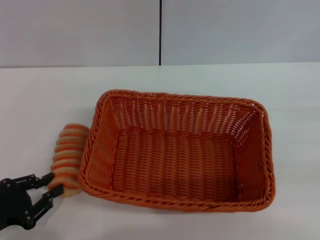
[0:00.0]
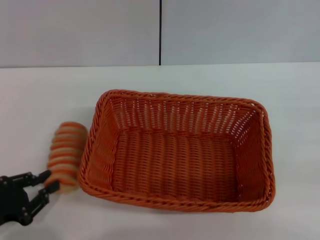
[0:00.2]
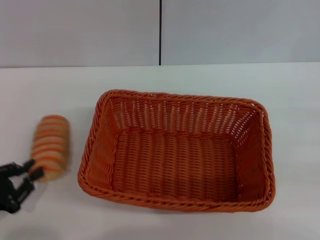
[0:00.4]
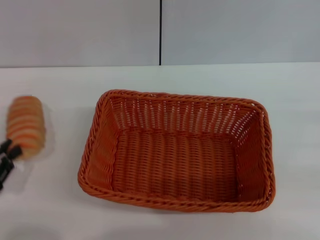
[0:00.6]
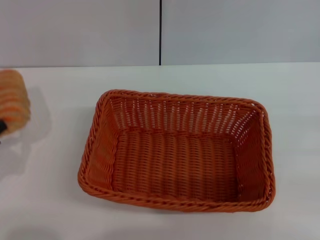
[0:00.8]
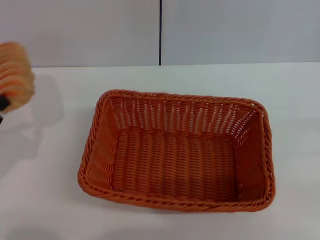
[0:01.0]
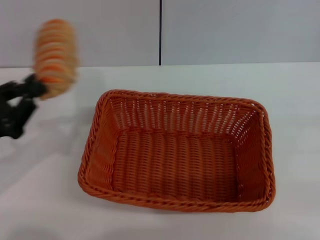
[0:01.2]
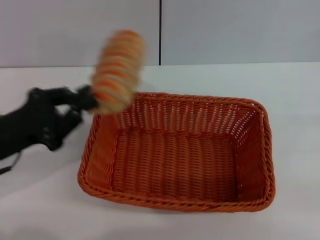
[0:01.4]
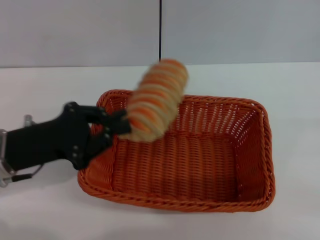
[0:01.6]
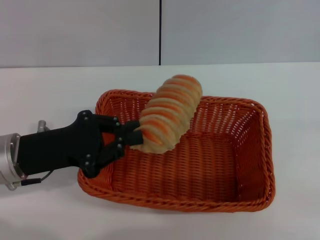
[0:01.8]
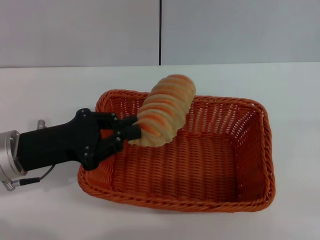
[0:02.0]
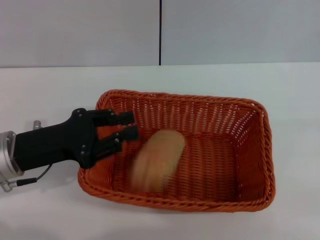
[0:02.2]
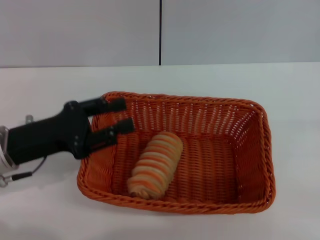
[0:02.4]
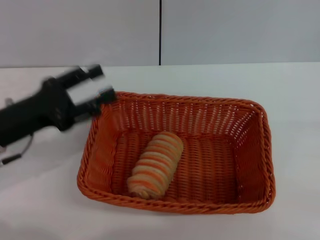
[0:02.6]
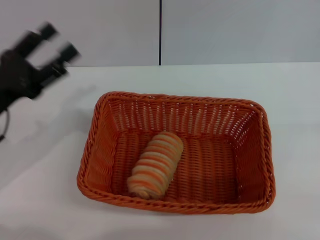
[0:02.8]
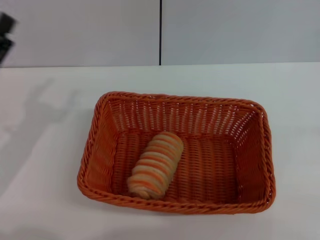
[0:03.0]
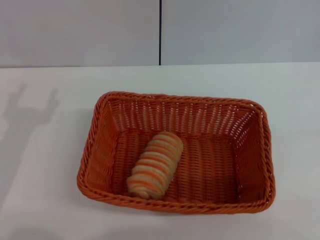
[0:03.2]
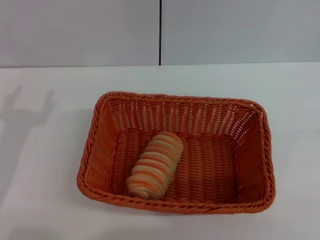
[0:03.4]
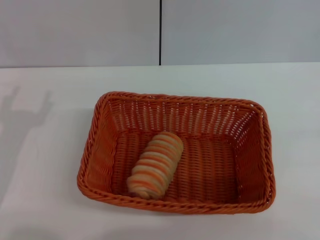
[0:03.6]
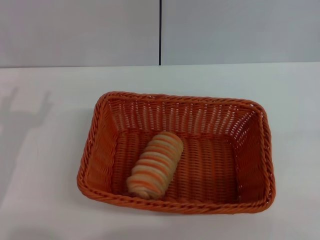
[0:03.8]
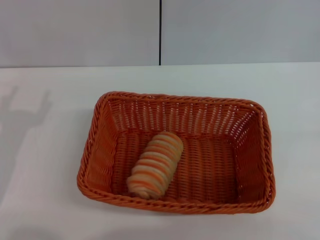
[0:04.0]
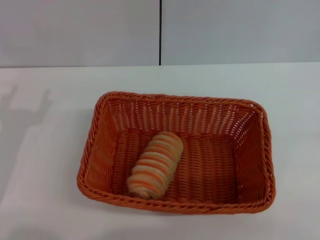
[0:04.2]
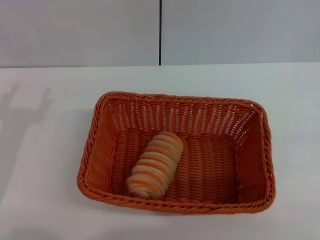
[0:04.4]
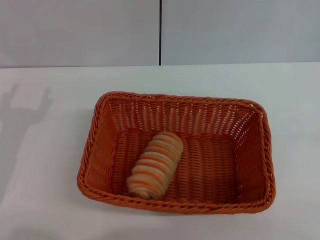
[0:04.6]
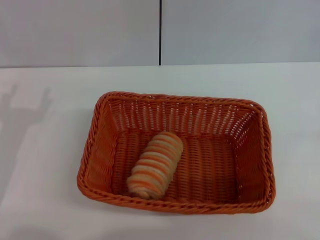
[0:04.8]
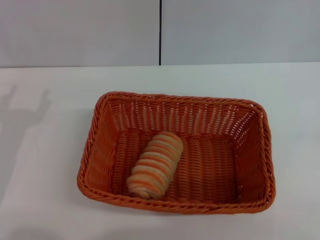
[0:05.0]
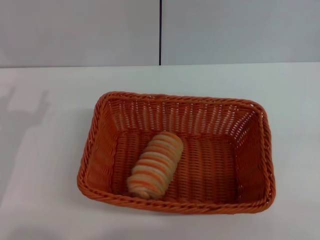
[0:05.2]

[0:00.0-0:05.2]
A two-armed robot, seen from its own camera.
Step, 0:00.8 to 0:02.4: Place the long bread into the dark basket with the left gripper.
0:00.0 to 0:01.8: The left gripper shifts about 15 cm forward, to the right and upward.
0:01.8 to 0:03.4: The left gripper heads to the left, covering about 5 cm, and opens up.

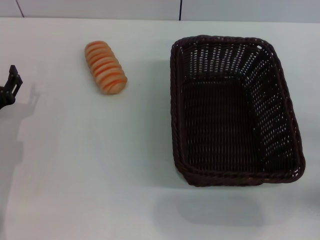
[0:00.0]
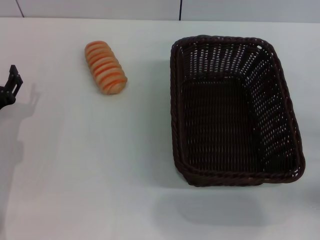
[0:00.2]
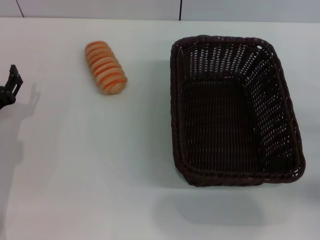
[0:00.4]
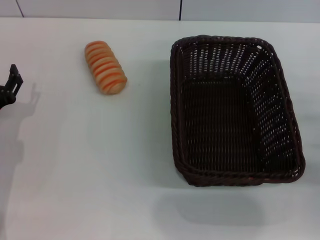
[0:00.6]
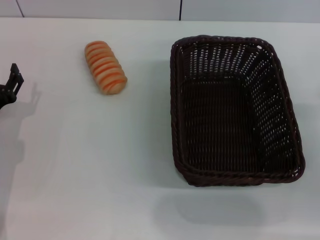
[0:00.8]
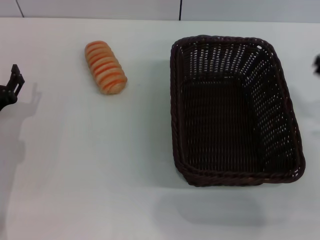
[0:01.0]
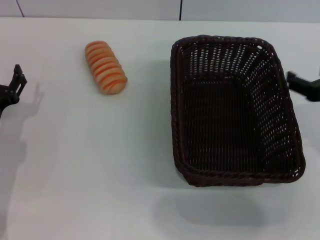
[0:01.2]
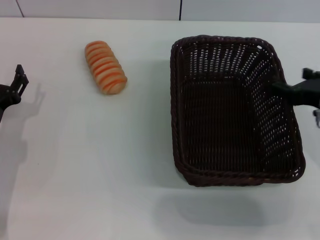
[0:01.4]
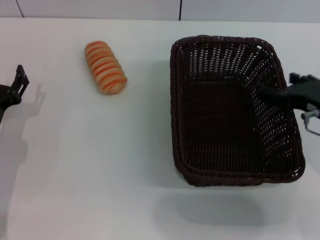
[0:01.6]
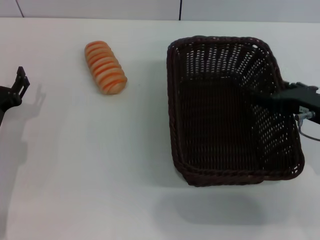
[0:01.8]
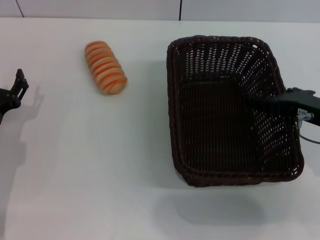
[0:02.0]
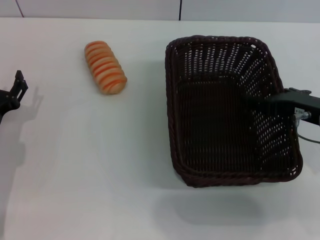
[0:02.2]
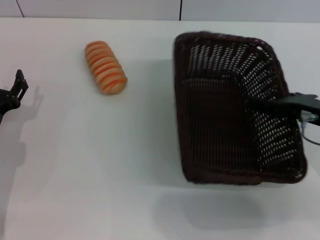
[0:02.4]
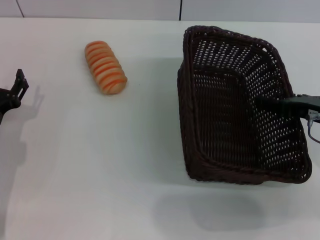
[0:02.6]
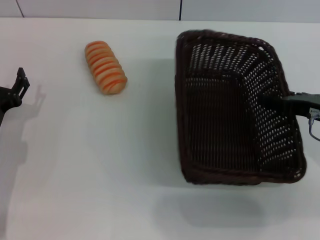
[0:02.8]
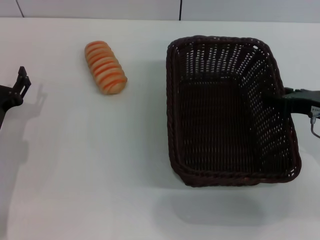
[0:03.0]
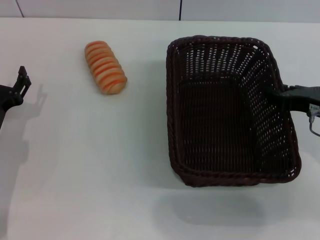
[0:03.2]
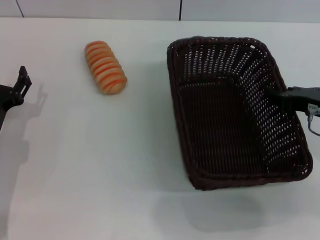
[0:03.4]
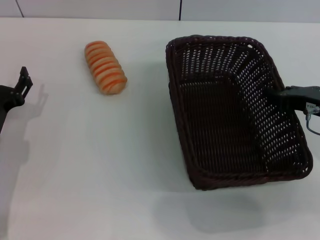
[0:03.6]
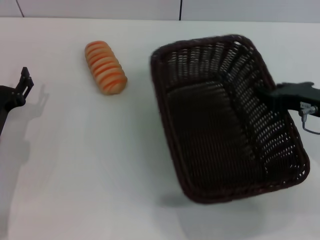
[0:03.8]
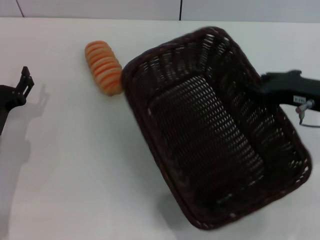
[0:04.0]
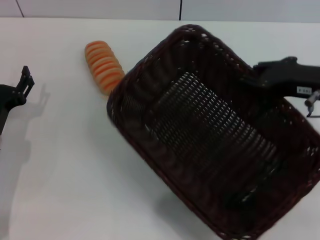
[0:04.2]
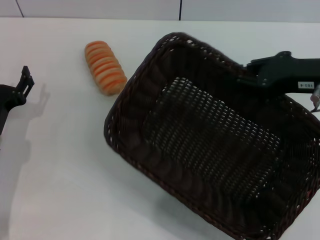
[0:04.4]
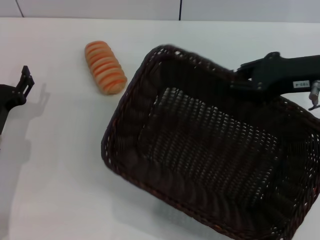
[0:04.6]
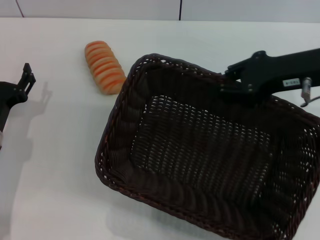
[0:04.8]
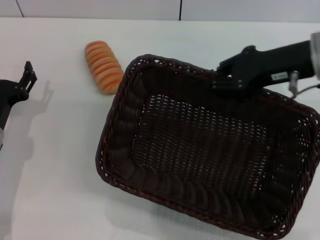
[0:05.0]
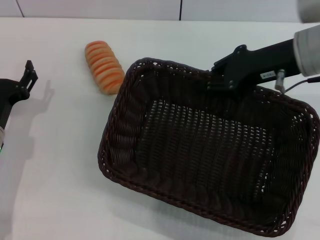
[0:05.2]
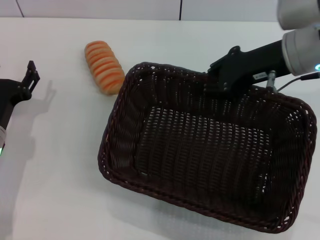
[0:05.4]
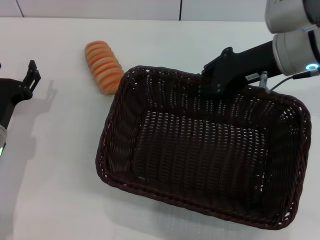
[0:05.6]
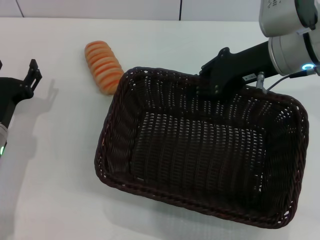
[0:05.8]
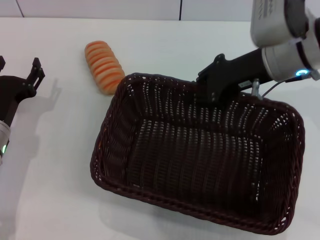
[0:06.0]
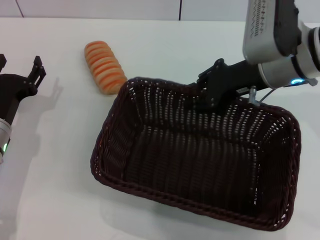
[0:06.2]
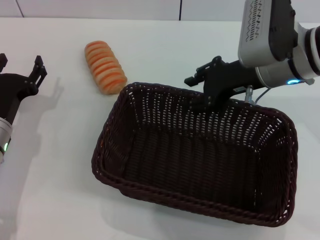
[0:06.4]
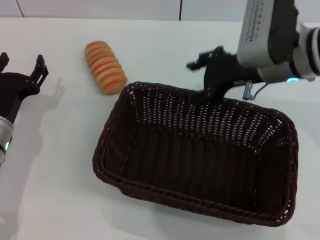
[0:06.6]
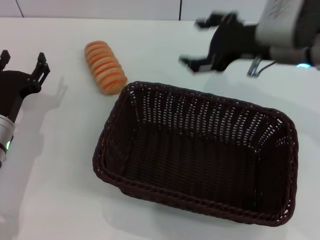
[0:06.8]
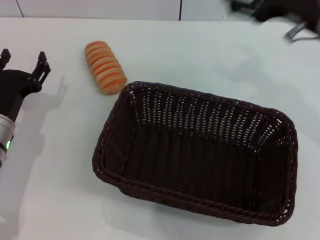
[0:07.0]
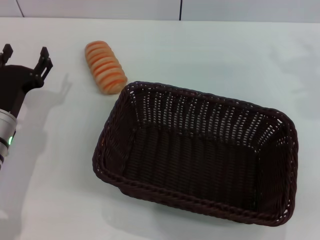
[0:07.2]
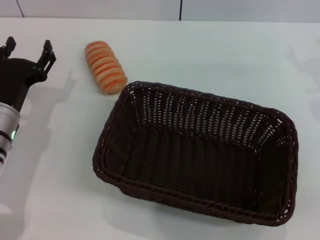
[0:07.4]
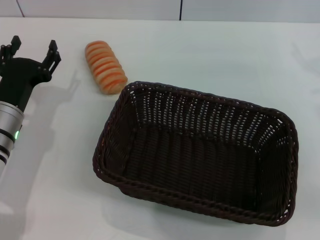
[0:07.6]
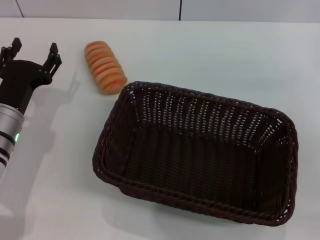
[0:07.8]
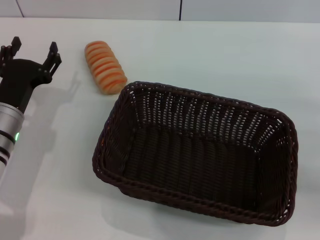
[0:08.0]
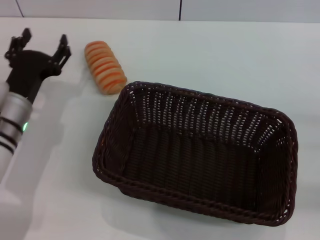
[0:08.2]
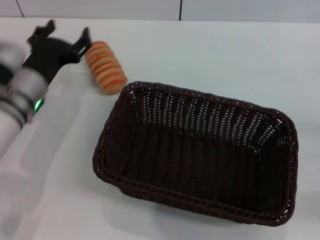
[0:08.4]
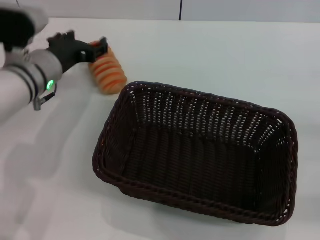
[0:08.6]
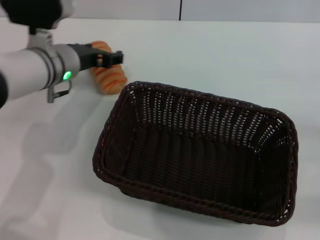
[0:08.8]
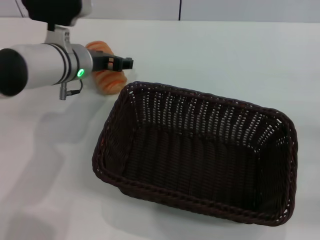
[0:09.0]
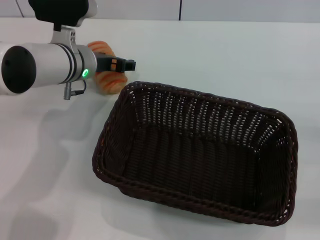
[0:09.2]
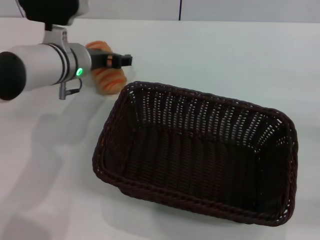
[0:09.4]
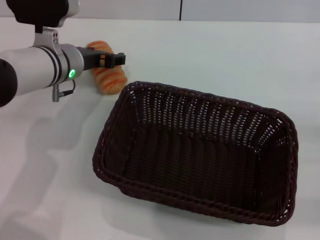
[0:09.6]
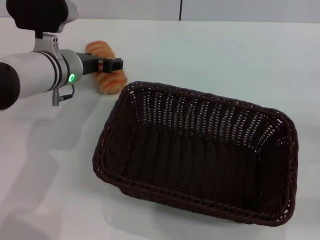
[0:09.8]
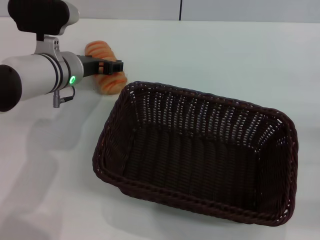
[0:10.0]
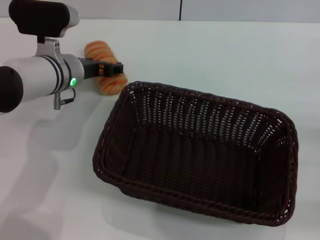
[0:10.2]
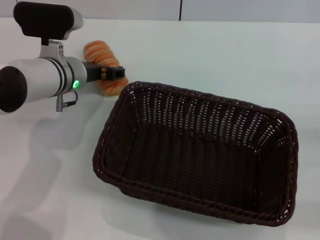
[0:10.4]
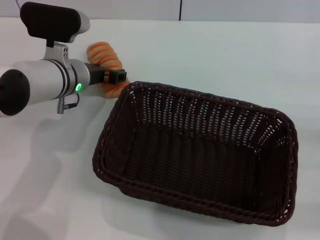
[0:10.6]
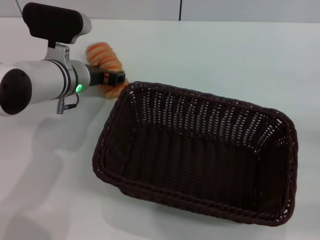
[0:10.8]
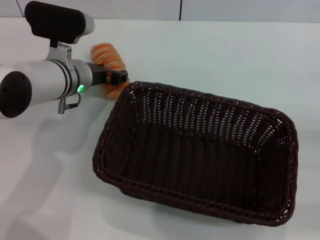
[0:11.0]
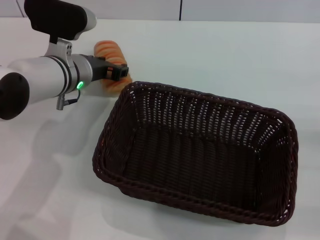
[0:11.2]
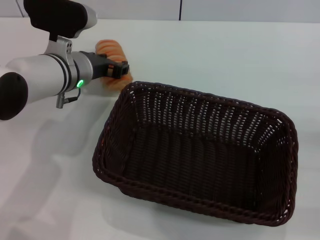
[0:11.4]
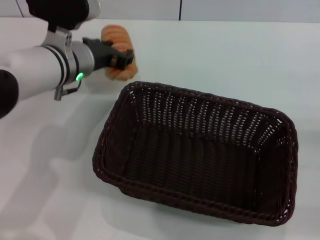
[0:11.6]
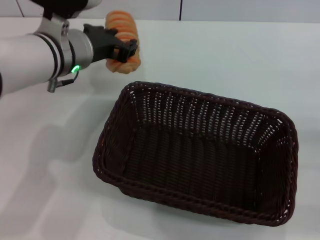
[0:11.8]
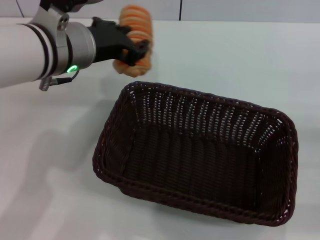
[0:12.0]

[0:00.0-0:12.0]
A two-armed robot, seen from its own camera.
Step, 0:00.0 to 0:04.2: Pick up the dark basket with the right gripper.
Step, 0:04.6 to 0:07.0: Place the dark basket in the center of view with the right gripper.
Step, 0:07.4 to 0:11.8: Pick up the long bread with the left gripper.
0:00.0 to 0:01.6: The right gripper moves to the left, upward and forward, approximately 15 cm.
0:01.6 to 0:03.0: There are only small adjustments of the grippers.
0:03.0 to 0:04.4: The right gripper is displaced upward by roughly 10 cm, and closes up.
0:04.4 to 0:06.0: The right gripper goes approximately 10 cm to the left and forward.
0:06.0 to 0:07.6: The right gripper moves to the right, about 15 cm, and opens its fingers.
0:07.6 to 0:09.0: The left gripper heads forward, to the right and upward, covering about 15 cm; the right gripper heads downward, backward and to the right, covering about 20 cm.
0:09.0 to 0:10.4: There are only small adjustments of the grippers.
0:10.4 to 0:12.0: The left gripper is displaced upward and backward by about 15 cm, and closes its fingers.

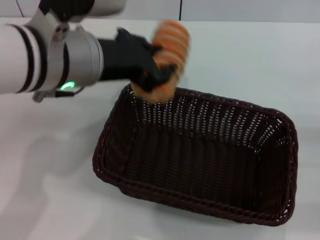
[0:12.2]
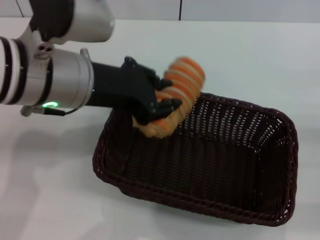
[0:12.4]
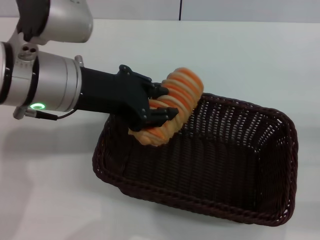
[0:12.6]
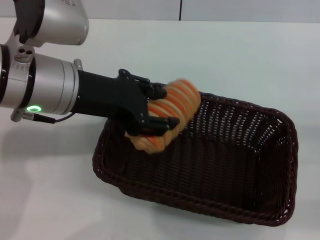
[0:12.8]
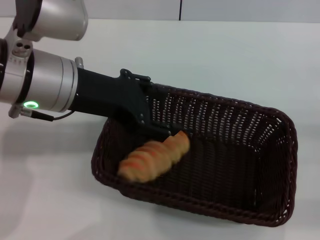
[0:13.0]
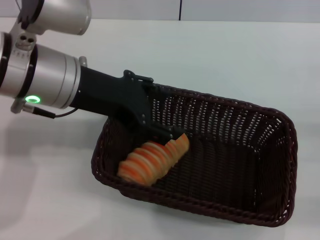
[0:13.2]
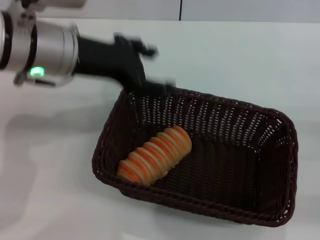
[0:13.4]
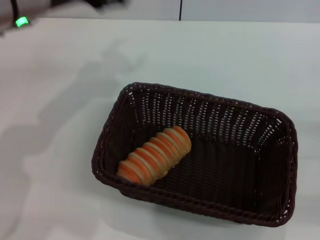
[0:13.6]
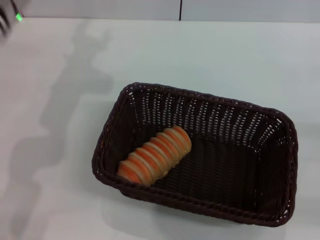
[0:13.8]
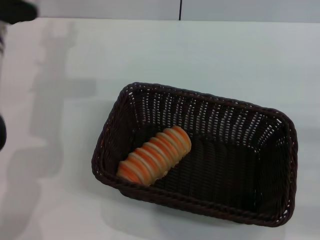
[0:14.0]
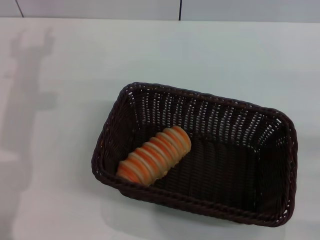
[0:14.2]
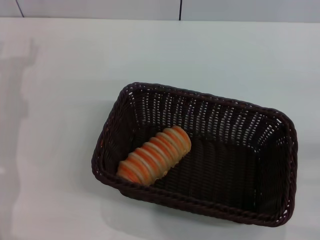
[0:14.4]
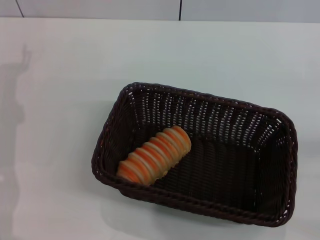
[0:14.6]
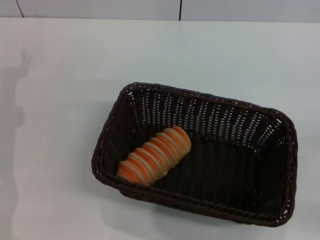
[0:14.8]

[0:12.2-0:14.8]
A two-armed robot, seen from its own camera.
Step, 0:12.2 to 0:13.2: Place the long bread into the dark basket with the left gripper.
0:12.2 to 0:13.4: The left gripper opens its fingers.
0:13.4 to 0:14.8: The left gripper is displaced downward and to the left by approximately 20 cm.
